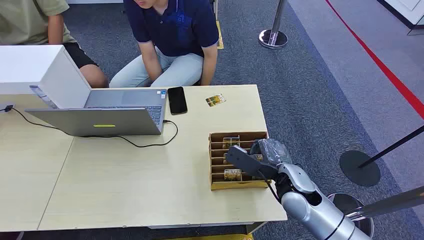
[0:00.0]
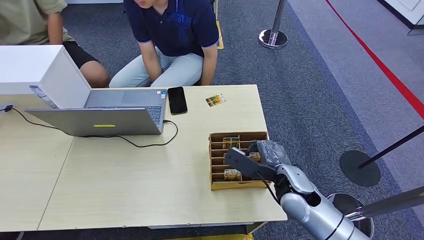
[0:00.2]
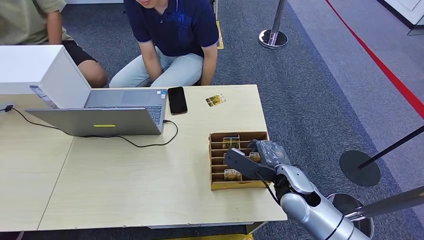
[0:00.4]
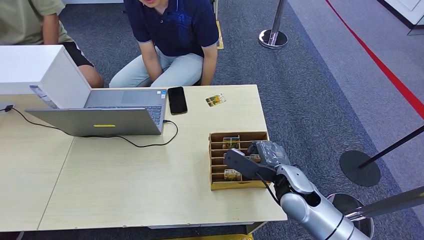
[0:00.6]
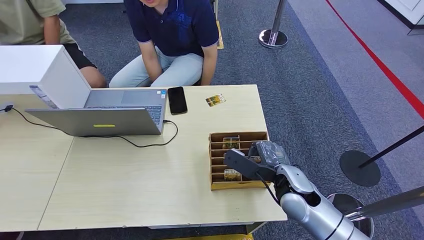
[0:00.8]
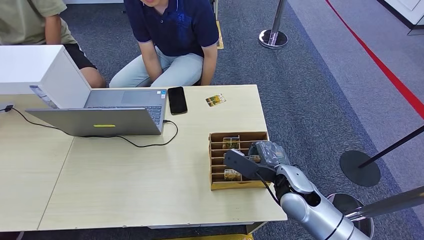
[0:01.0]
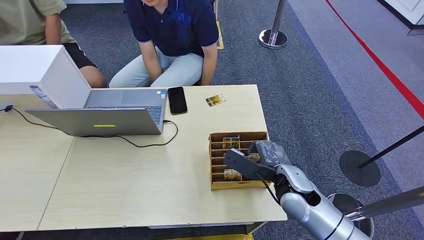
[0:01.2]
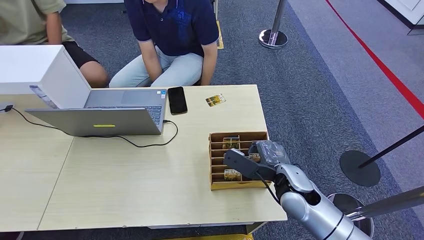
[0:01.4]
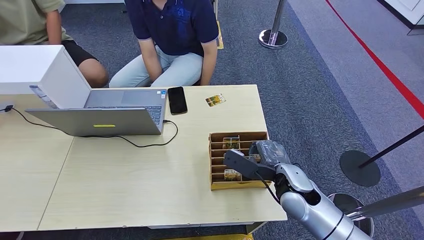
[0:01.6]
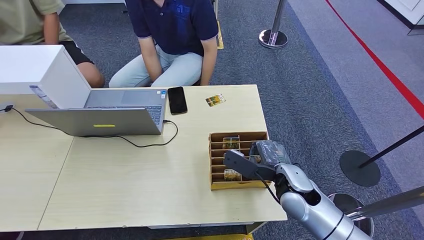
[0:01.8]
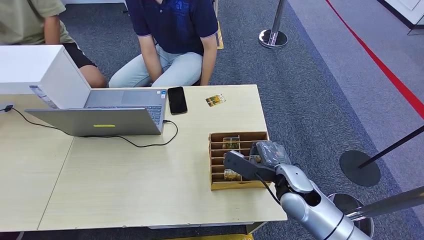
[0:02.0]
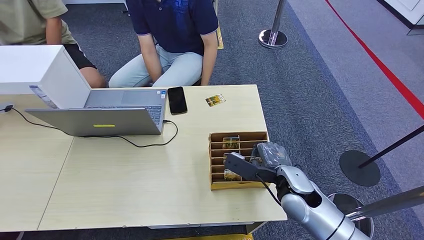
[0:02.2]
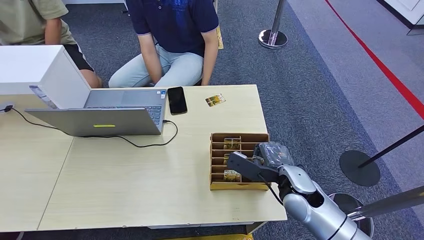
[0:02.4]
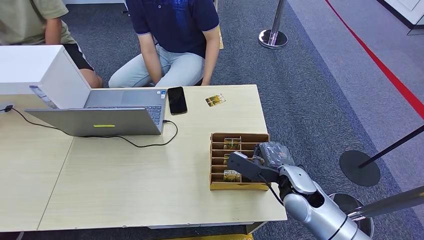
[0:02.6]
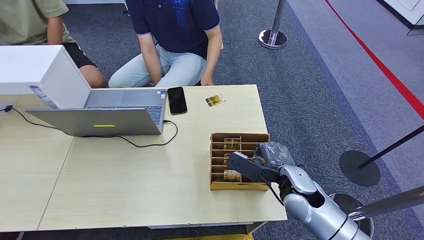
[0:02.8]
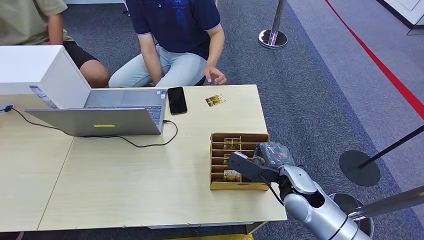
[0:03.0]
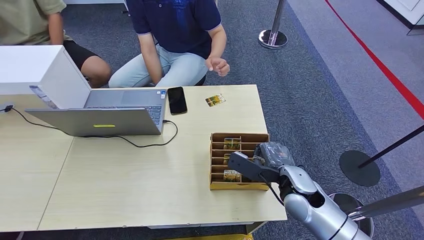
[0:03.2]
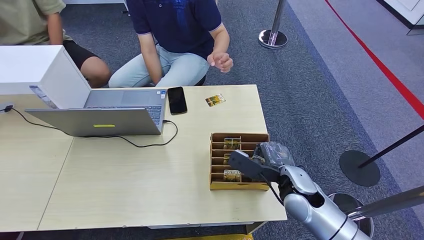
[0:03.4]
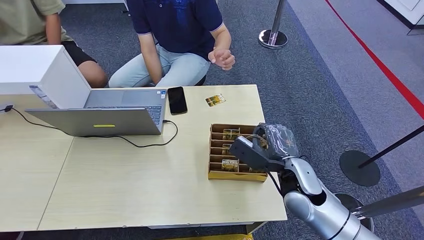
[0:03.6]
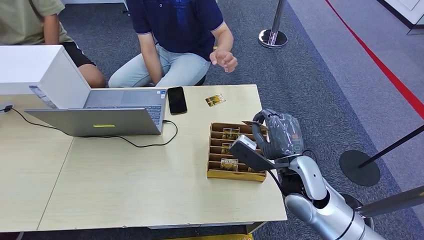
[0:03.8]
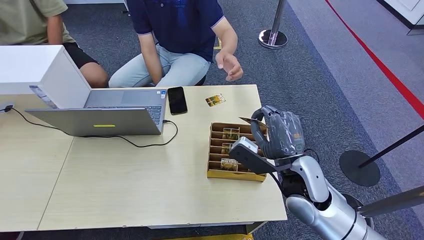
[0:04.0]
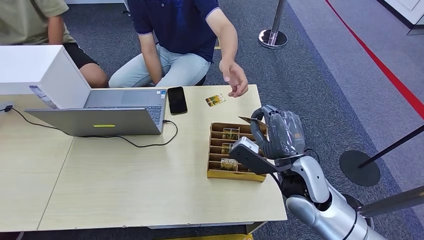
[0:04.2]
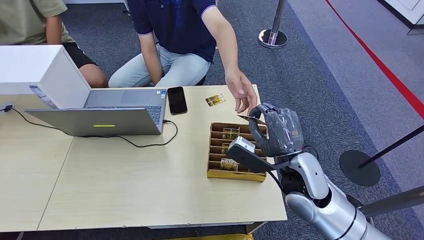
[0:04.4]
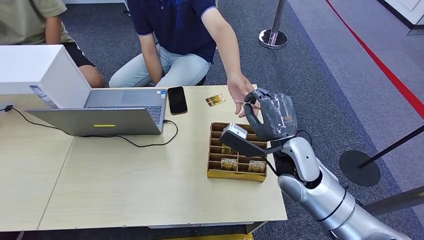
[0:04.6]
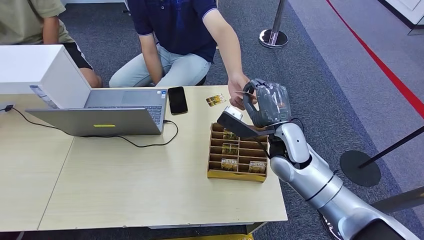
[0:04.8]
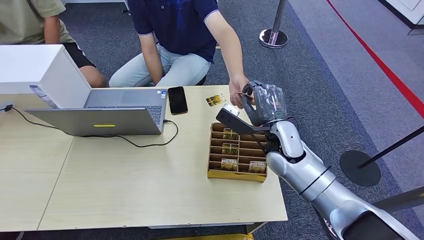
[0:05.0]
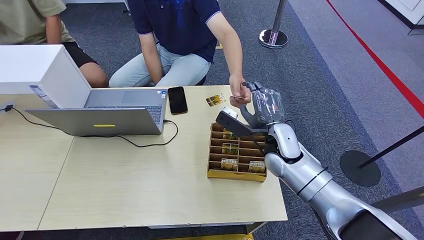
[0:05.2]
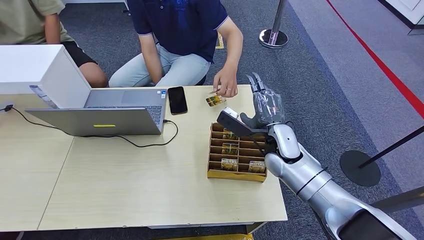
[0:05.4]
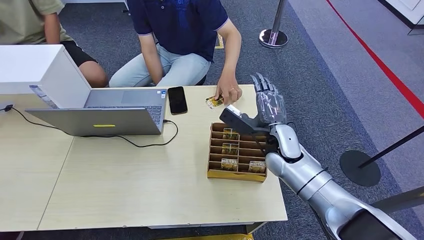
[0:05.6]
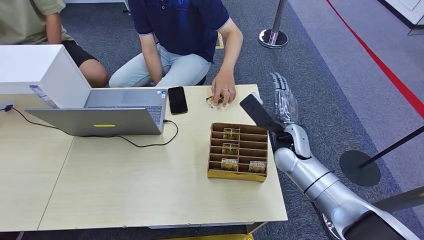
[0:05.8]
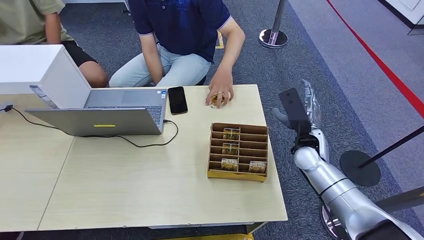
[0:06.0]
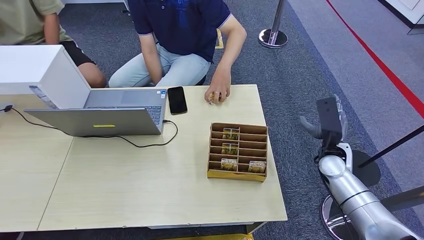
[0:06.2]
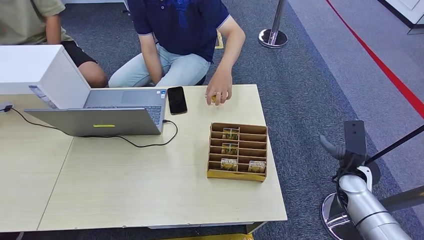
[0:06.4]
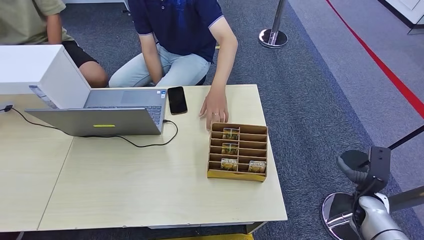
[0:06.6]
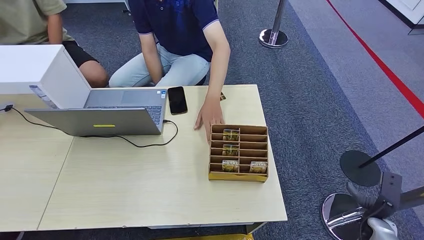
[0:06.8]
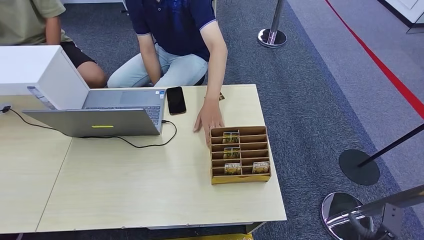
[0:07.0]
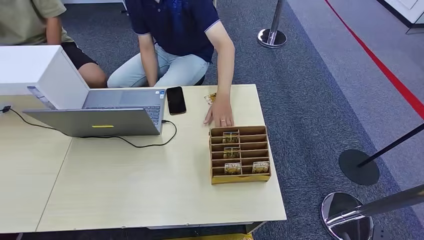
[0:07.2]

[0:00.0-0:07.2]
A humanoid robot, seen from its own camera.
Step, 0:00.0 to 0:03.6: Pick up the room card from the card holder.
Step, 0:04.0 to 0:07.0: Hand the room card to the target.
0:01.4 to 0:02.8: There are only small adjustments of the hands.
0:02.8 to 0:04.4: The right hand goes about 5 cm upward.
0:04.4 to 0:05.8: The right hand moves forward, approximately 10 cm.
0:05.8 to 0:07.2: The right hand moves backward, downward and to the right, approximately 40 cm.
